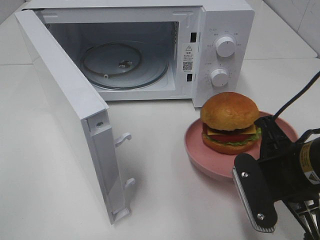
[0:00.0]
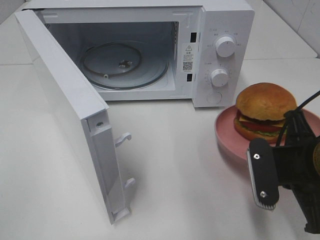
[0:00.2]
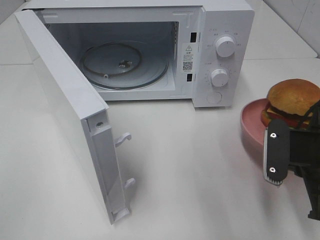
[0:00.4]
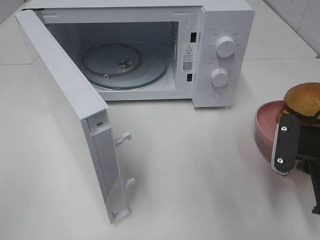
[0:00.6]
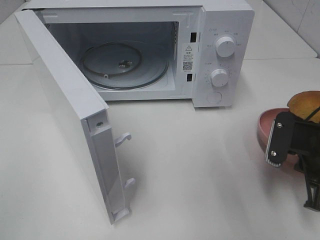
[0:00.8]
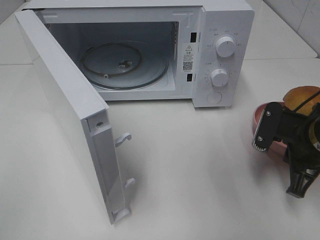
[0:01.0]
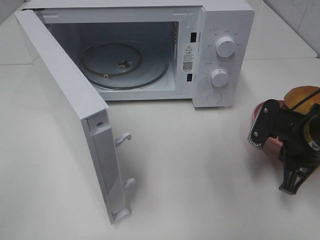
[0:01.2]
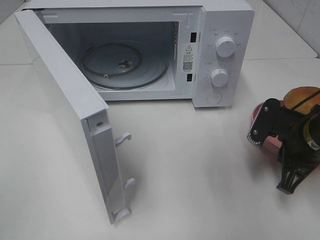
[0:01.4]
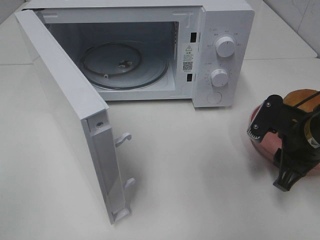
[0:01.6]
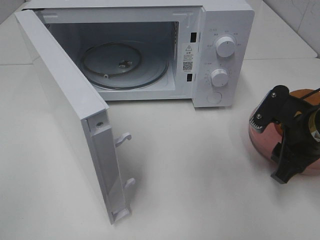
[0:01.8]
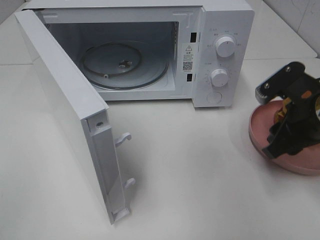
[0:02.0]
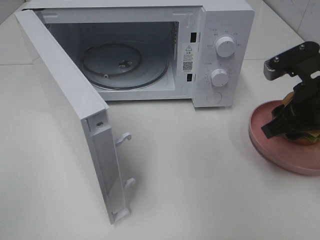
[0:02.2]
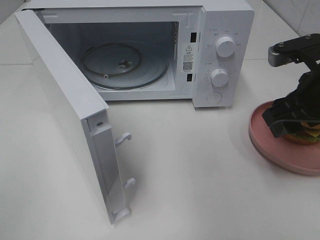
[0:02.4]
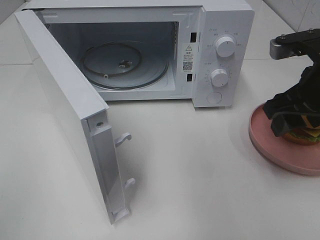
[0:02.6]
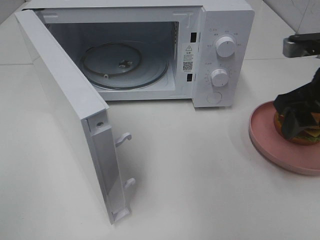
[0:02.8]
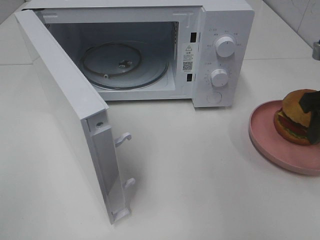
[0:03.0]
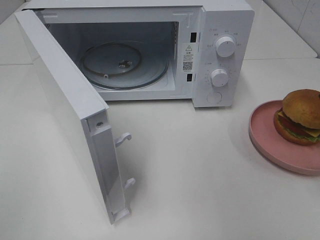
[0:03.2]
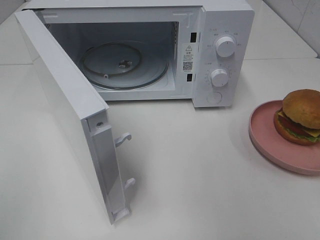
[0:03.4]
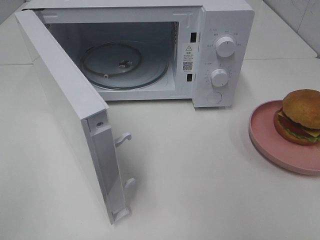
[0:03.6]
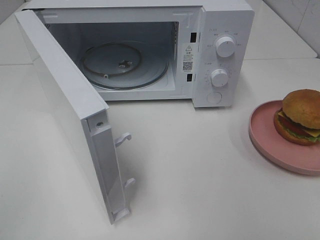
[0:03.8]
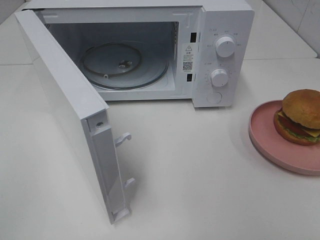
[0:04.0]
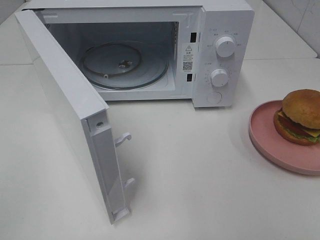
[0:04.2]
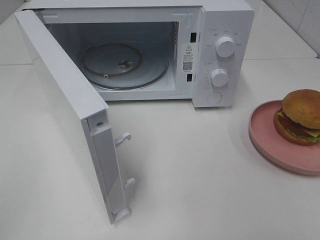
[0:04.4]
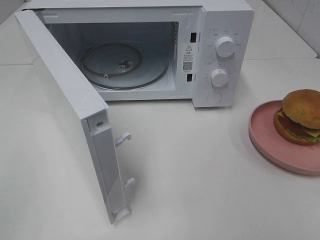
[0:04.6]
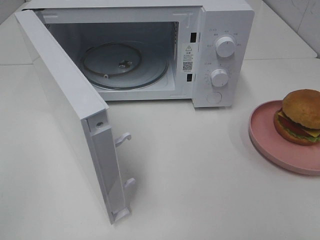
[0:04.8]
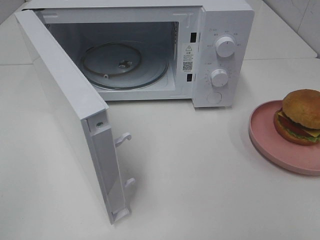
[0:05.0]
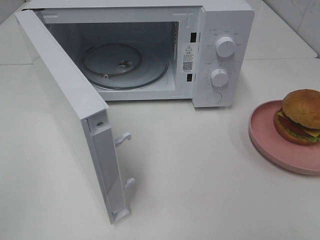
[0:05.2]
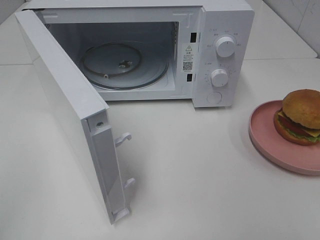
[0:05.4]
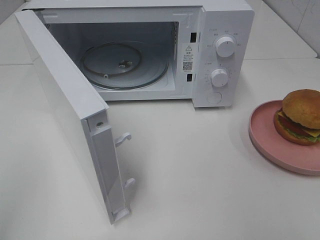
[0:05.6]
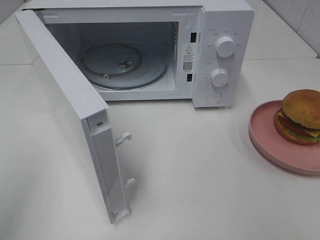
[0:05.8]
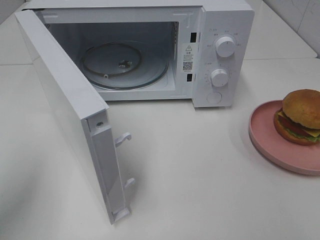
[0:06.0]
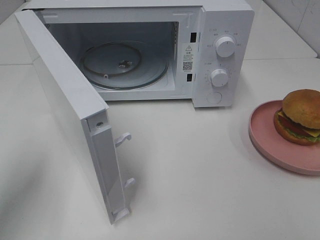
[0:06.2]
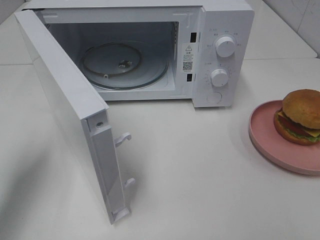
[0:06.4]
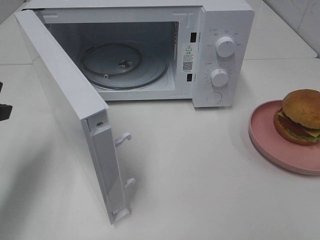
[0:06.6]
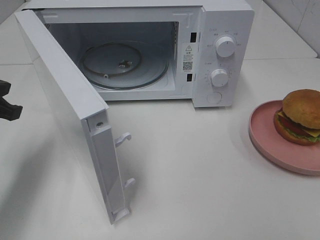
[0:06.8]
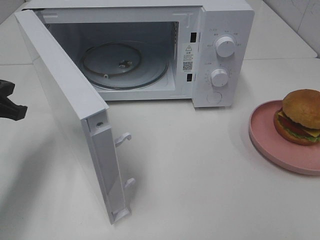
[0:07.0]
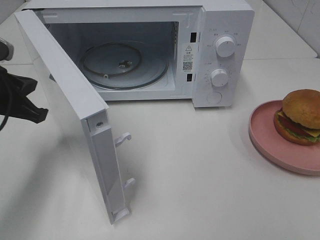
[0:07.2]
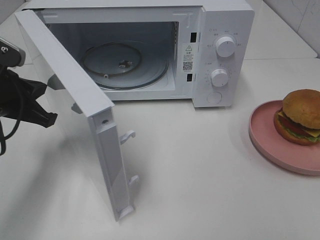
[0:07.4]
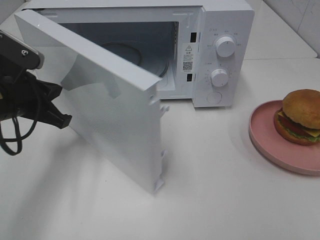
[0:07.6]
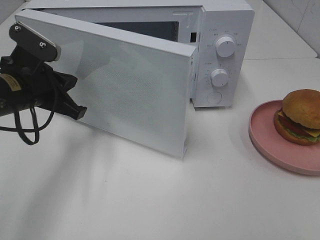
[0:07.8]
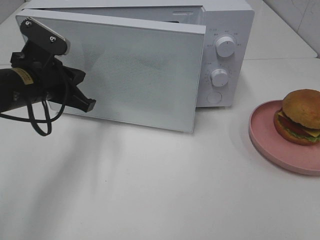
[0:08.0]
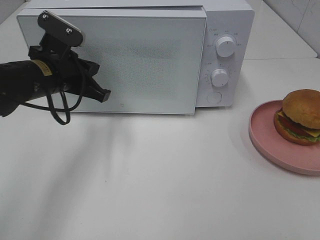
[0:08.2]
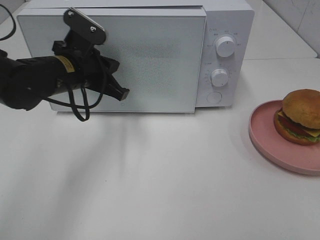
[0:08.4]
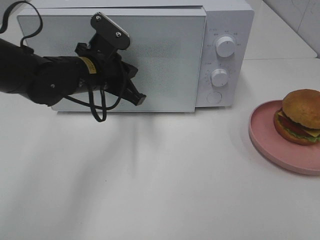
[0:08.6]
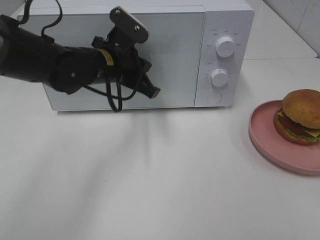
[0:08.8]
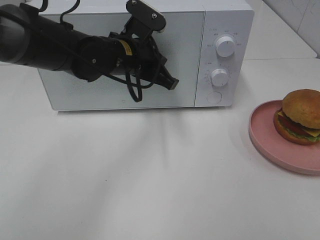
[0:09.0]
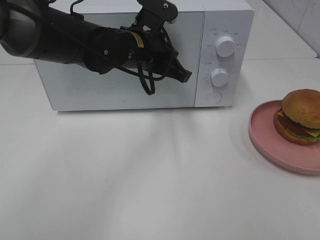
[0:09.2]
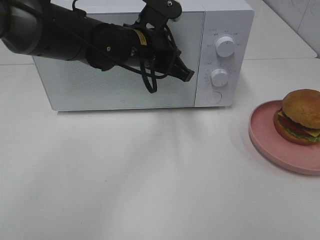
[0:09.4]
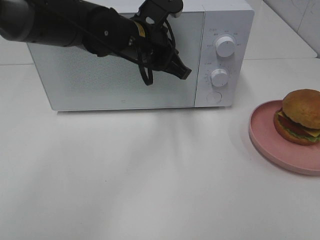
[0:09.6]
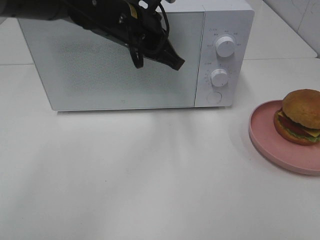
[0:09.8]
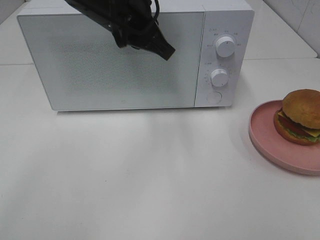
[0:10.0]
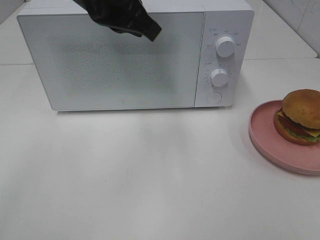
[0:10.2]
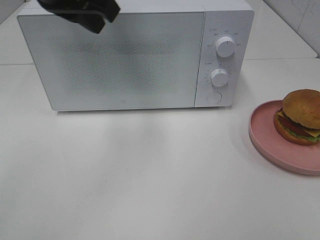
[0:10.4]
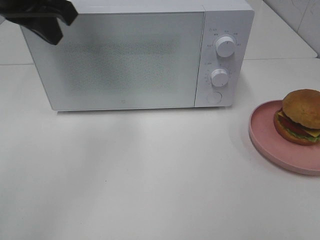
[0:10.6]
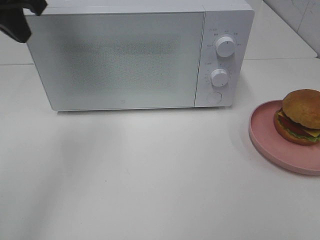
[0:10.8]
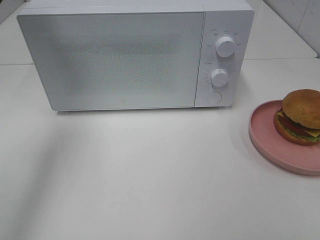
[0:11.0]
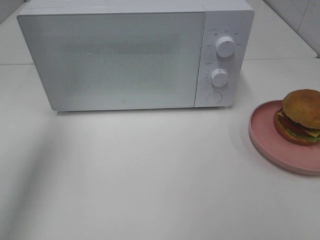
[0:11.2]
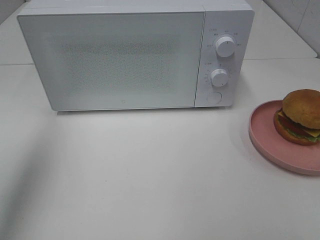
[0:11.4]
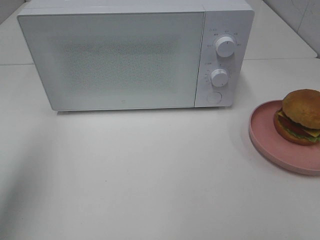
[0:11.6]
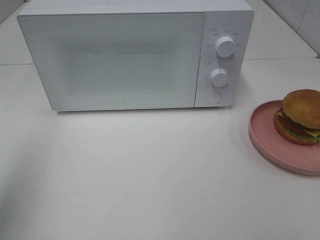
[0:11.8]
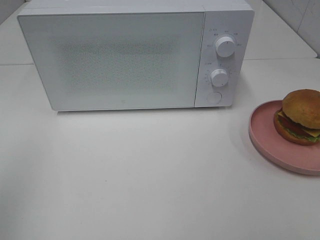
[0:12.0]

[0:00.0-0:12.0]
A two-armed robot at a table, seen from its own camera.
Task of the whole recording: Heat the burger.
Step, 0:01.6 to 0:09.4: Left hand: close the microwave door.
0:00.0 to 0:01.6: The right gripper moves forward and to the right, about 10 cm, and opens up.
0:01.6 to 0:03.0: The right gripper travels upward by about 10 cm.
0:03.0 to 0:04.4: The right gripper is displaced backward by some 25 cm.
0:04.4 to 0:06.0: The left gripper is displaced forward by about 15 cm.
0:06.0 to 0:07.6: The left gripper moves forward, downward and to the right, roughly 20 cm.
0:07.6 to 0:09.0: The left gripper goes some 20 cm to the right and forward, and opens.
0:09.0 to 0:10.4: The left gripper travels upward, to the left and backward by roughly 20 cm.
0:10.4 to 0:12.0: The left gripper is displaced backward and to the left by about 30 cm, and closes its fingers.

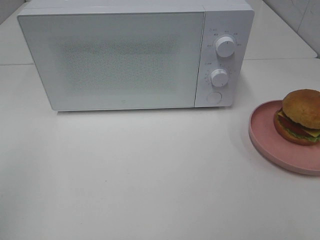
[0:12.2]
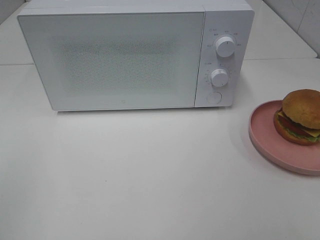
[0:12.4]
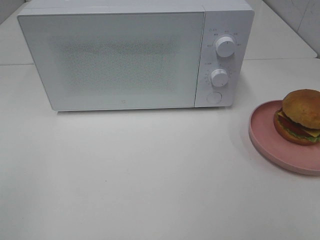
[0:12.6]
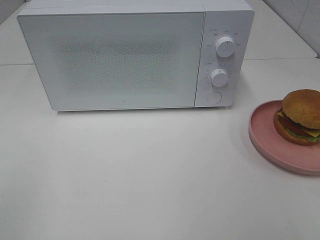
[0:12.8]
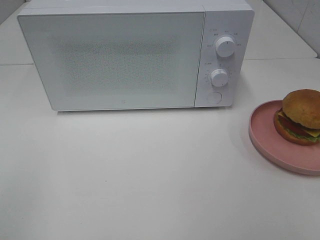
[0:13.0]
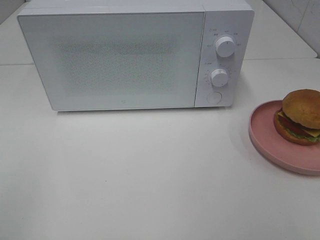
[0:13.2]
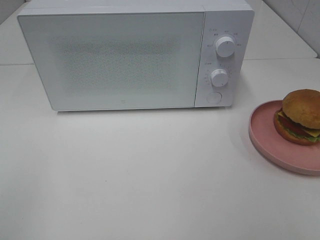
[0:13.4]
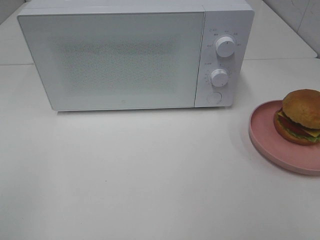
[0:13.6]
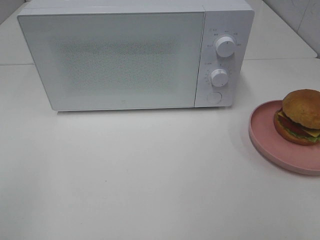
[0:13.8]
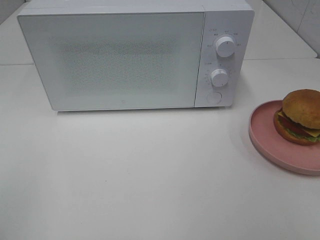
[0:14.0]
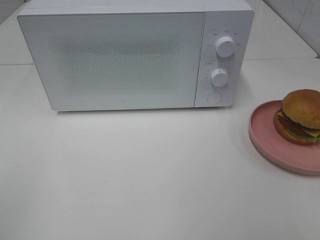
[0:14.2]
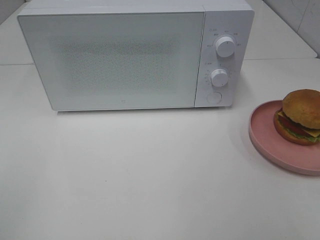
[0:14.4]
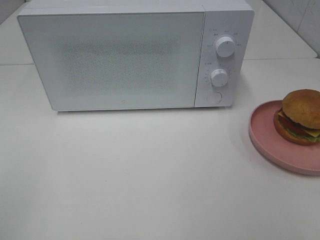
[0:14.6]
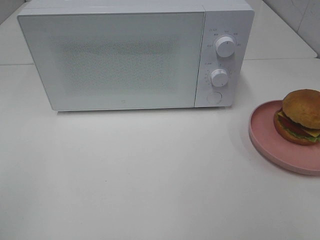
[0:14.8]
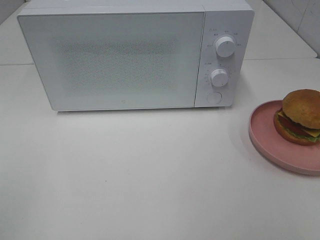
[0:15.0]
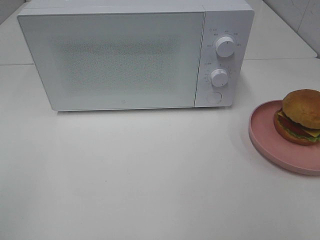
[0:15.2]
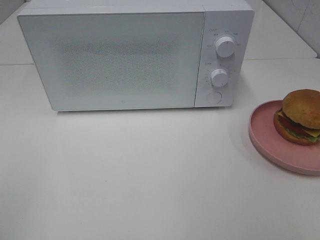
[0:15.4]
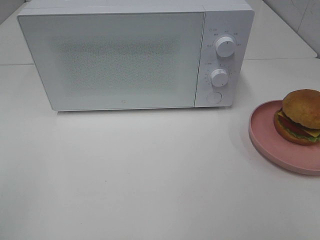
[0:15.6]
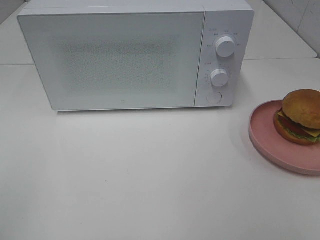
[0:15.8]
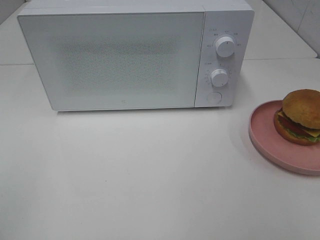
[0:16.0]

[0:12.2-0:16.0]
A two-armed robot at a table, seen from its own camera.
Task of the whole recording: Heat the burger.
0:14.8 to 0:16.0: Neither gripper changes place.

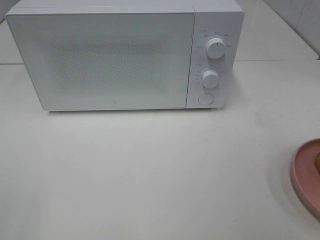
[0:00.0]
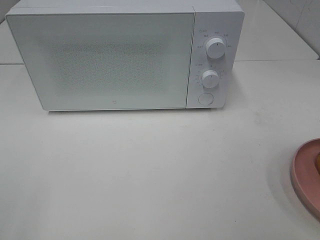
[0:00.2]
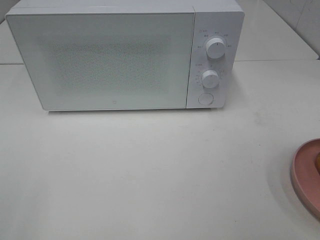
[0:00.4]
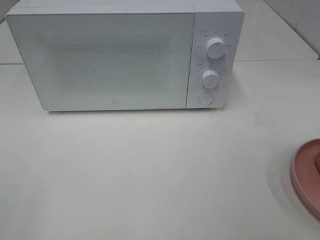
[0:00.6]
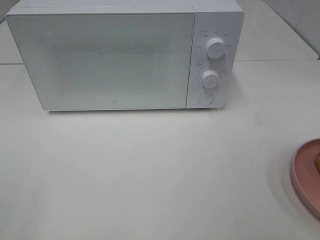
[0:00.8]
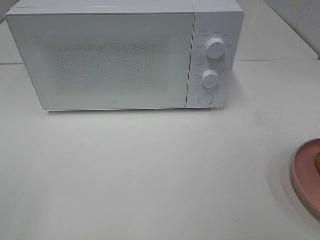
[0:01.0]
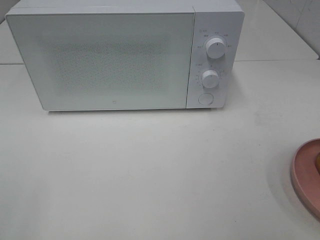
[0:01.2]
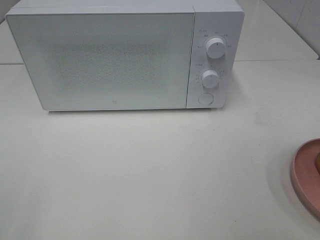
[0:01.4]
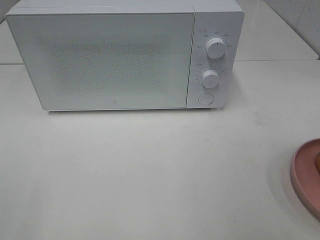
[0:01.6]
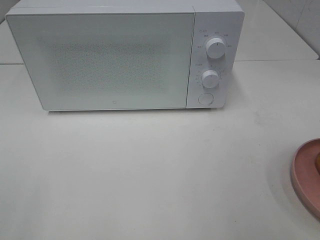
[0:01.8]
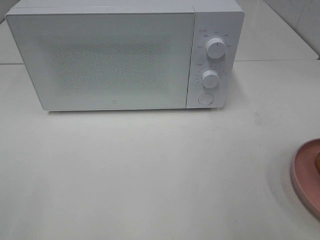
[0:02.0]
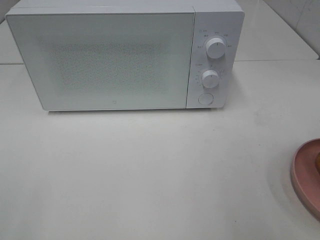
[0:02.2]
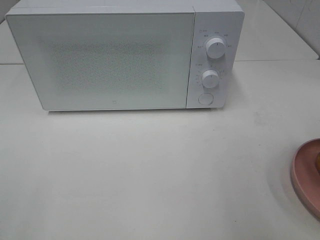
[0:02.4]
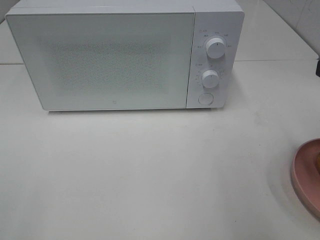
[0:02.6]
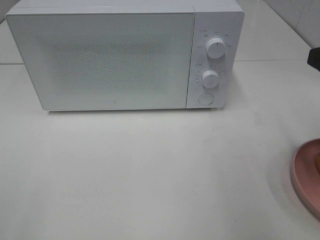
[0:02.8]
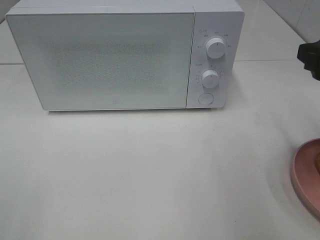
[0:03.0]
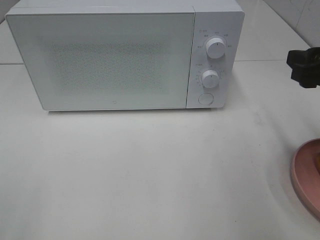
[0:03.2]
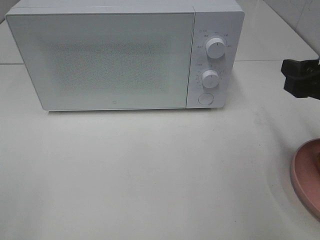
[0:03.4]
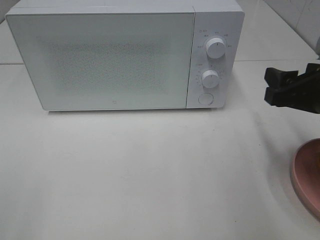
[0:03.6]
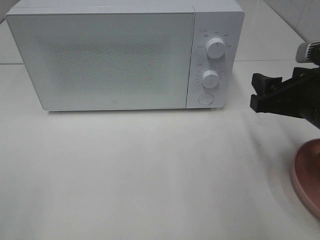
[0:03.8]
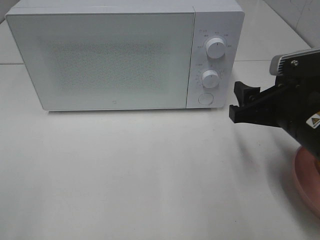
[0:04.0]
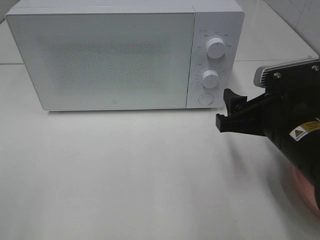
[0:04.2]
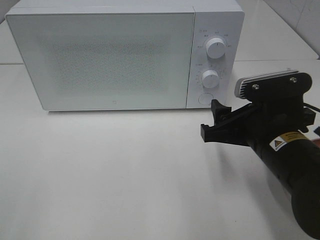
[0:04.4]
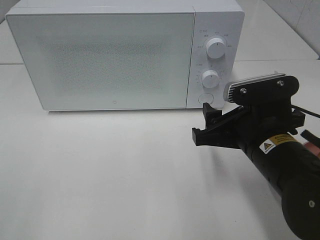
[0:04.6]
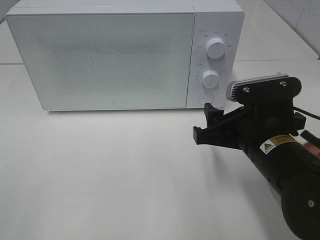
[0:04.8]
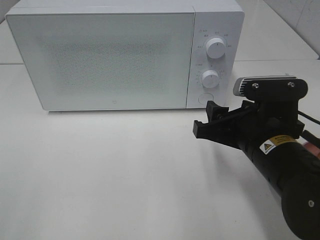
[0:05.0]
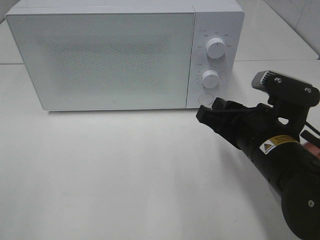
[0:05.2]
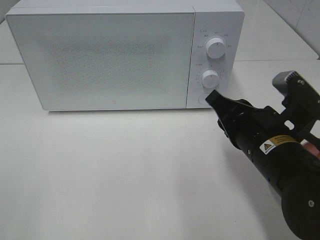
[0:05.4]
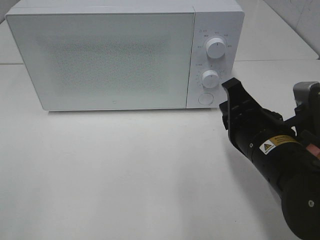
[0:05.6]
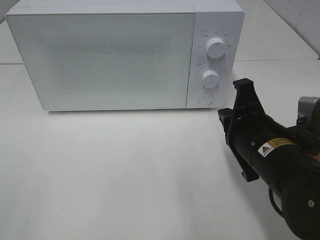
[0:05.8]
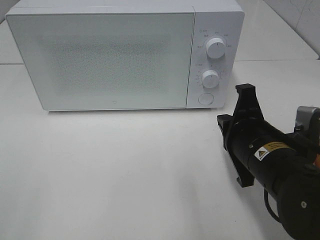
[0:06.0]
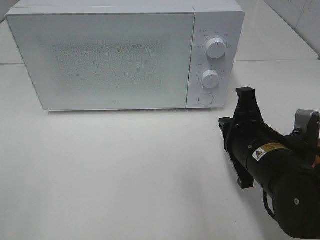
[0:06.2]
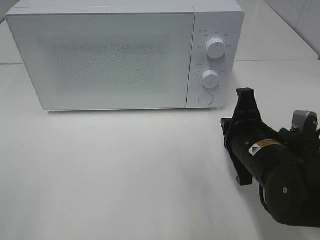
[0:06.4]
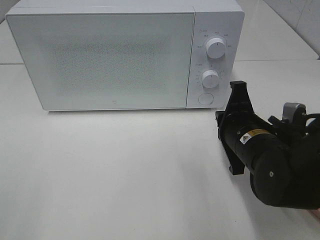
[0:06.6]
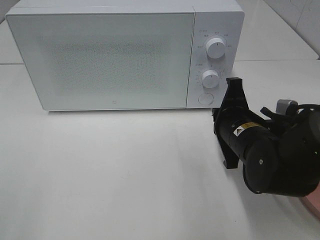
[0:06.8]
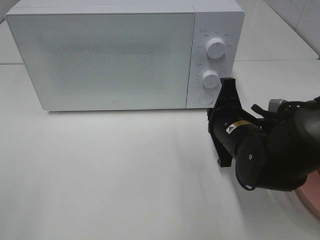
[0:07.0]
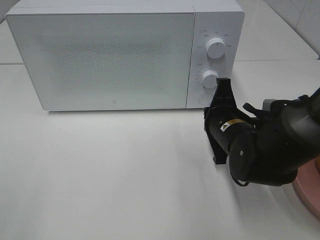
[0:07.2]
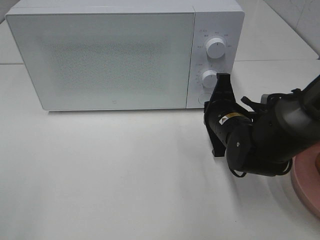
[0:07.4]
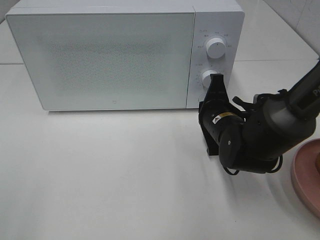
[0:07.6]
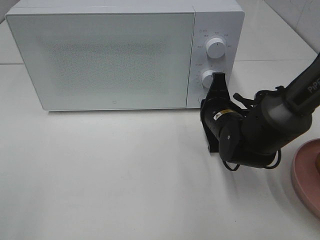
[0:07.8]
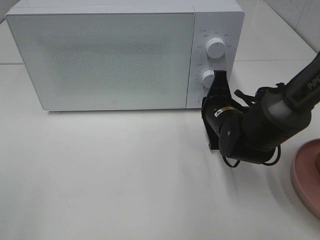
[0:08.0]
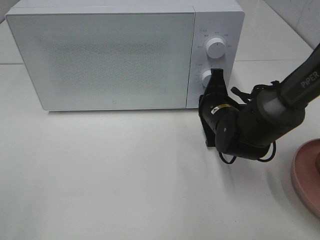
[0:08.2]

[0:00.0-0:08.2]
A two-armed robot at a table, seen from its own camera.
Task of the whole recording: Heat the burger.
0:01.6 to 0:03.2: The right gripper heads forward, covering about 15 cm.
0:03.2 to 0:05.0: The right gripper travels to the left and downward by some 15 cm.
0:05.0 to 0:06.6: The right gripper shifts by some 5 cm, and closes.
0:06.6 to 0:08.2: The right gripper travels forward by about 10 cm.
